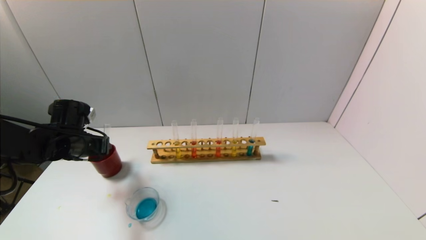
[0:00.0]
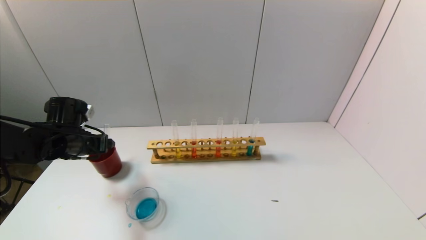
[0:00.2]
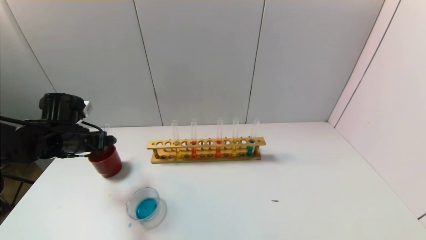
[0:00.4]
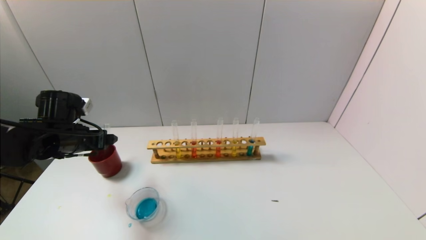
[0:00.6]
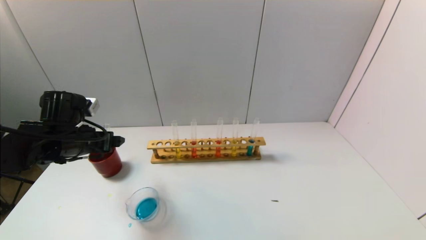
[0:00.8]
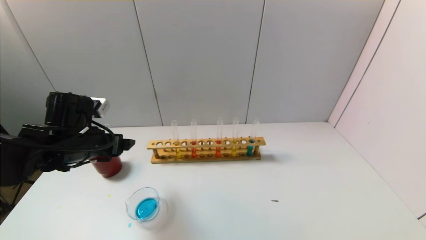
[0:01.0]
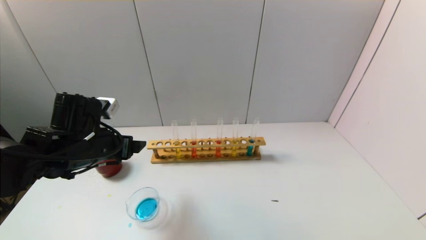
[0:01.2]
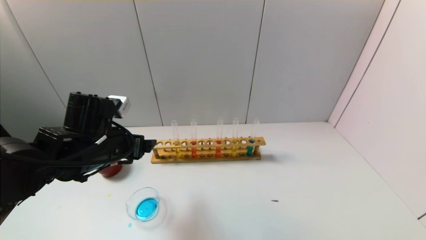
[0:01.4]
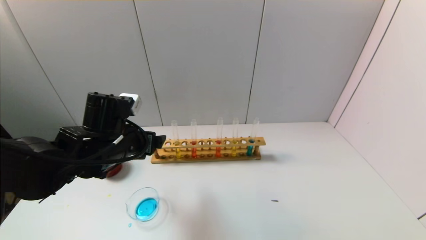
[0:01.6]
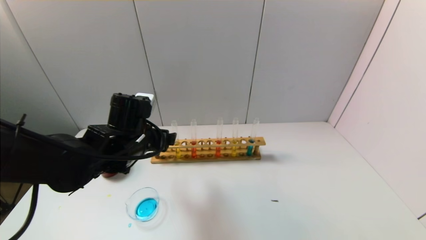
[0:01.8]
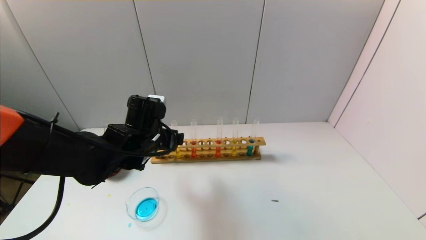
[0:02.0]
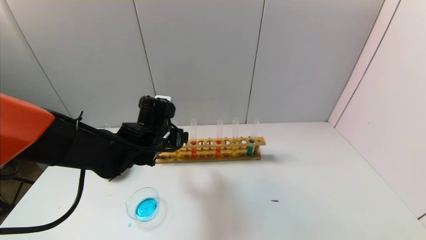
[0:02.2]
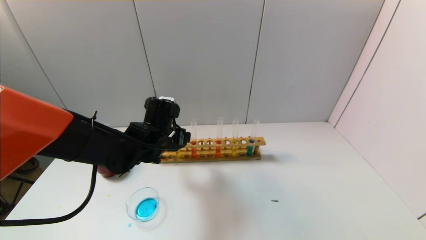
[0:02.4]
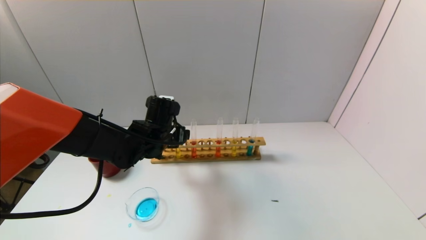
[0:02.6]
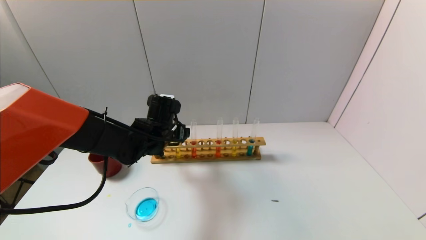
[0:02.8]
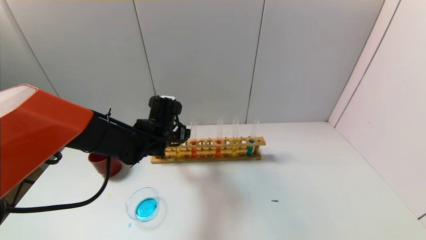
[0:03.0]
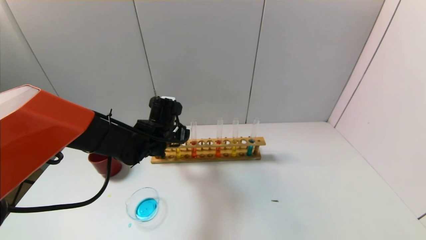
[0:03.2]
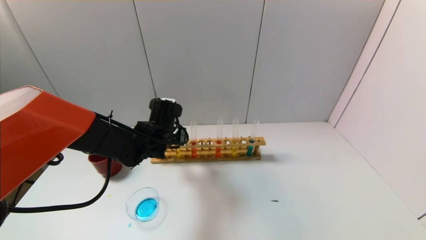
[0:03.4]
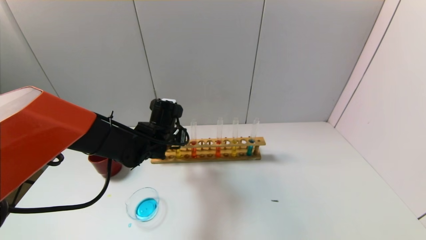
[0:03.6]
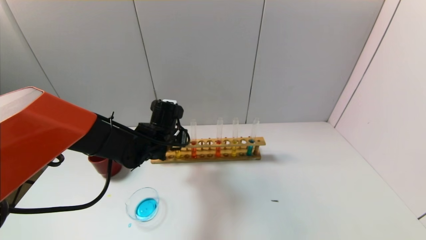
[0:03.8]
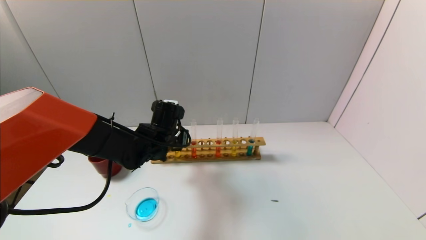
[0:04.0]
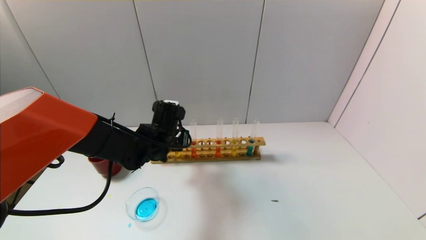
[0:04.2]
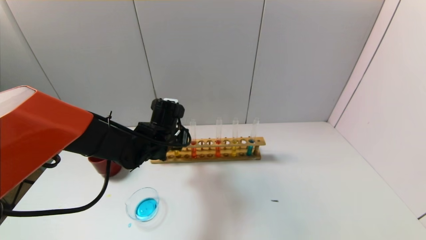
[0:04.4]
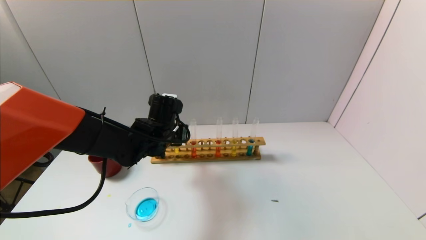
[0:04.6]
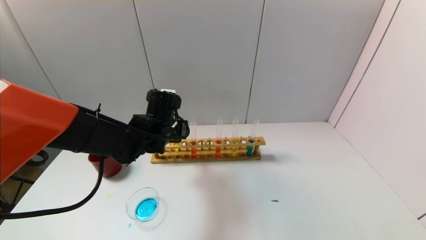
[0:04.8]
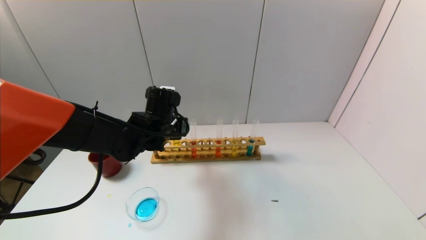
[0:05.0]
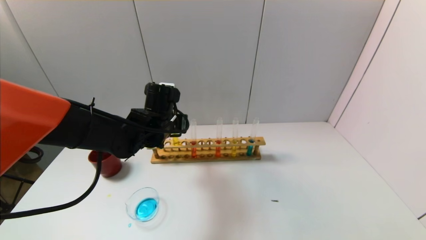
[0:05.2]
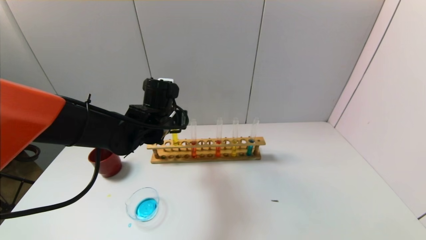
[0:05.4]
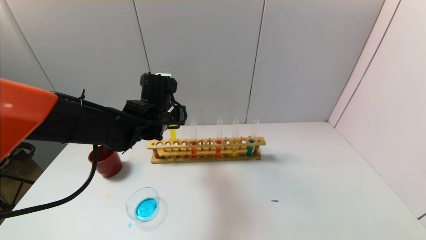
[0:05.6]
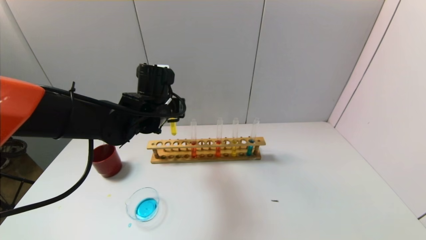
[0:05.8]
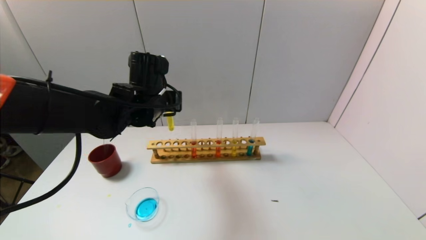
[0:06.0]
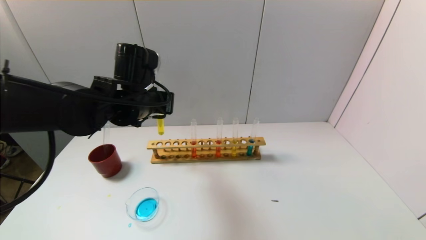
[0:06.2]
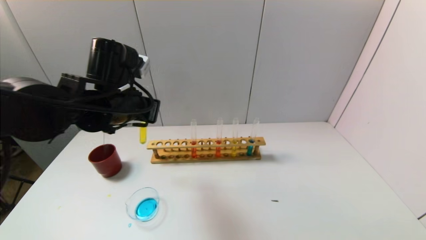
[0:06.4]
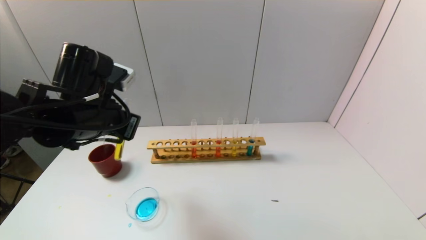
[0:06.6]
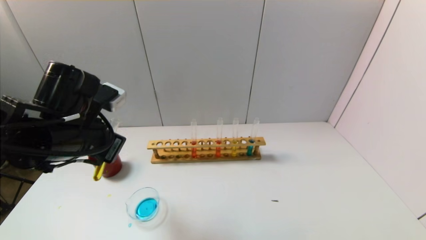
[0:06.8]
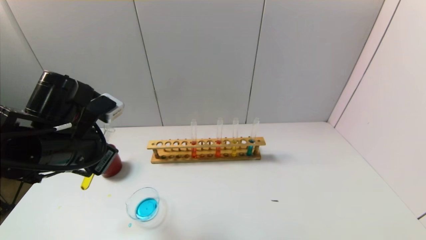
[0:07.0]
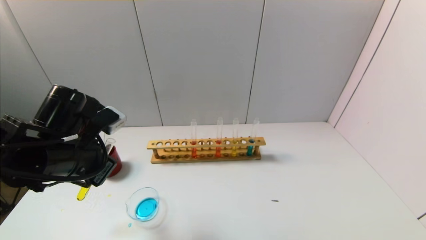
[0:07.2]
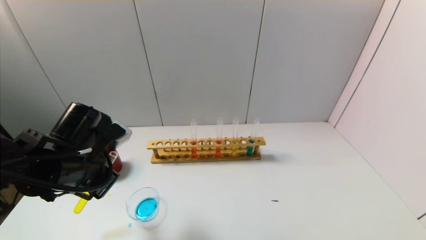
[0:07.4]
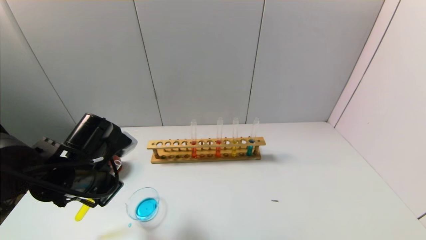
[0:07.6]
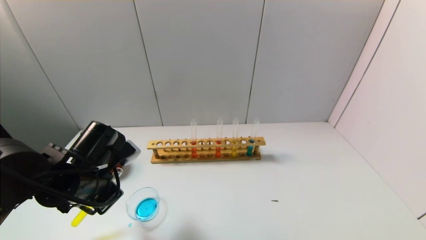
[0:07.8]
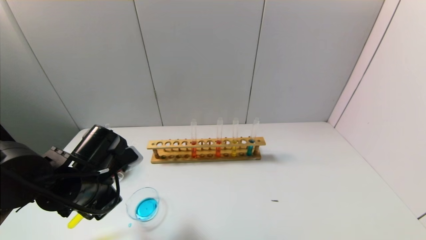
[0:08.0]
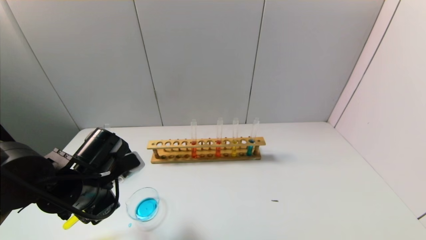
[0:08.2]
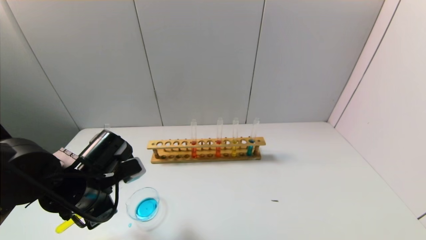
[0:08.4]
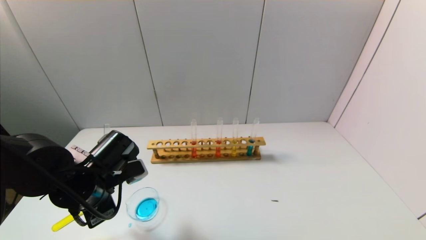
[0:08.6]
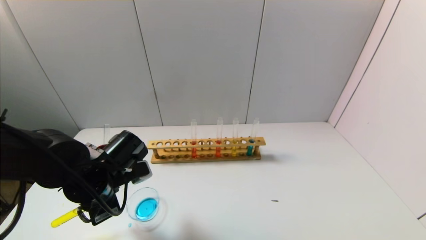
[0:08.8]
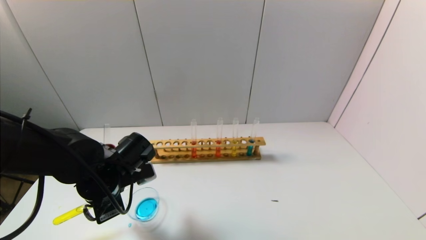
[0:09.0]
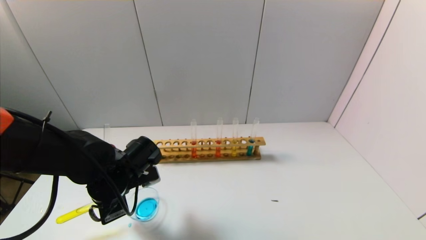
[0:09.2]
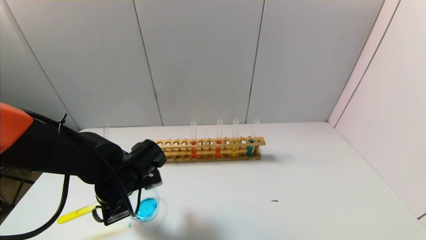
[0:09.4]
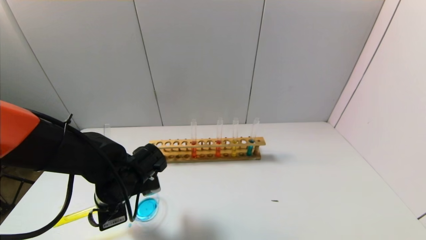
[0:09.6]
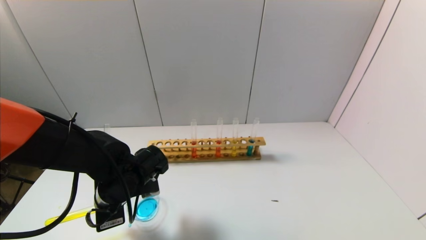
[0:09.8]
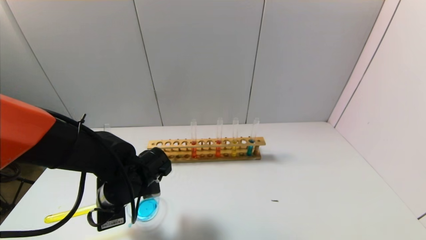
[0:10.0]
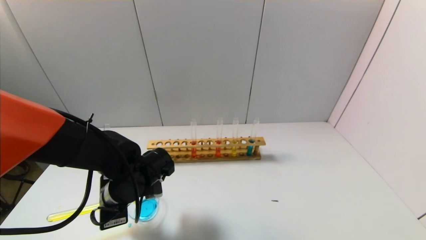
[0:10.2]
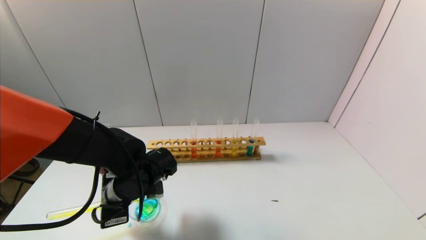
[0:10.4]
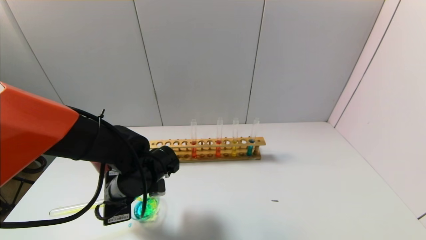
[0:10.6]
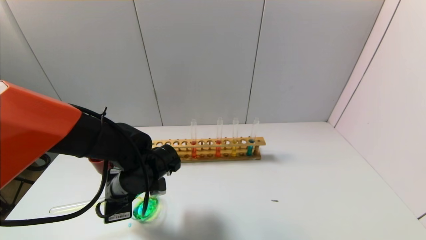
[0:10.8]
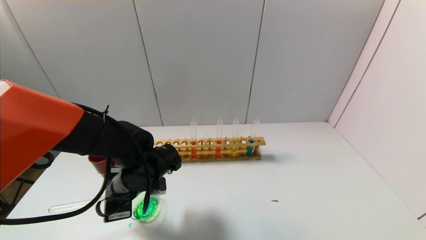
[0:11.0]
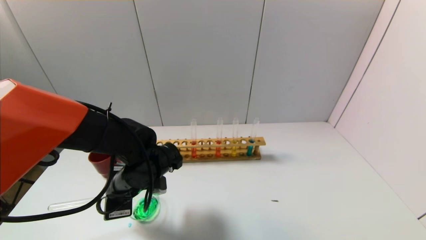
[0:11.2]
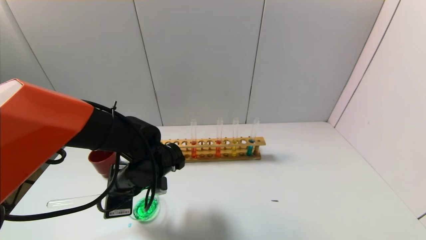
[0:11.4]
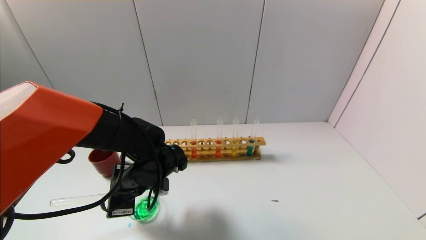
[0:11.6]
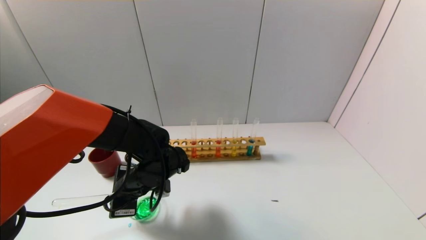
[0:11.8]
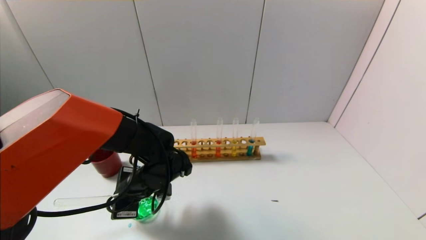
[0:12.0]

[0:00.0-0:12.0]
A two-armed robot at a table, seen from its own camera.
Task of the whole recording: pick up the test tube with yellow pigment and the test tube with blue pigment by grippers and pour them into the beaker.
Step, 0.2 to 4.0 s: Grasp the yellow reagent with the left gripper.
0.0 to 1.6 s: The left gripper travels to the right and backward by about 15 cm, and opens up.
1.6 to 3.0 s: The left gripper travels forward and to the right by approximately 10 cm.
3.0 to 4.4 s: The left gripper closes up.
4.4 to 6.0 s: The left gripper moves upward, roughly 10 cm.
6.0 to 7.6 s: The left gripper travels backward, to the left and downward by roughly 15 cm.
9.0 to 10.4 s: The grippers stay close to where they were, moving slightly.
10.4 to 12.0 s: There are only small adjustments of the grippers.

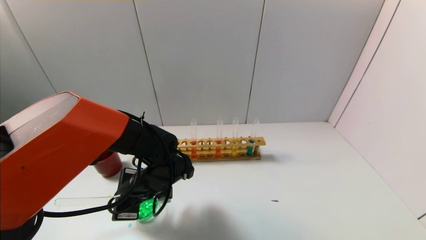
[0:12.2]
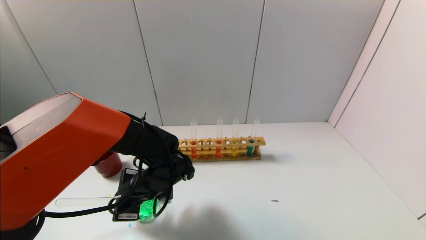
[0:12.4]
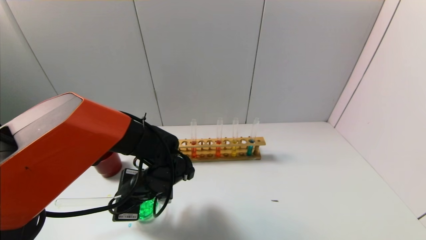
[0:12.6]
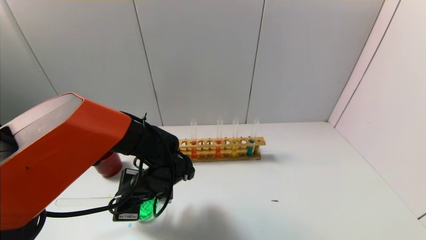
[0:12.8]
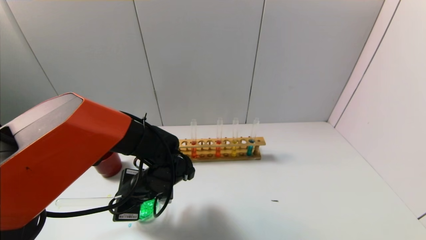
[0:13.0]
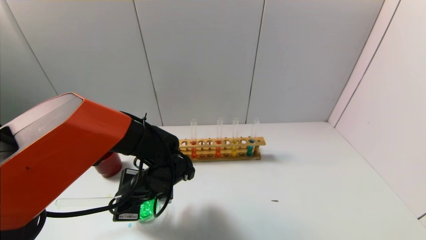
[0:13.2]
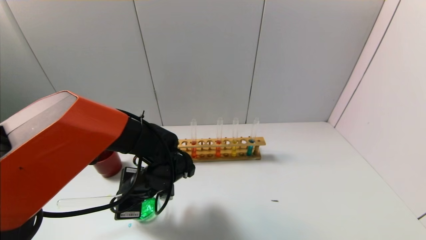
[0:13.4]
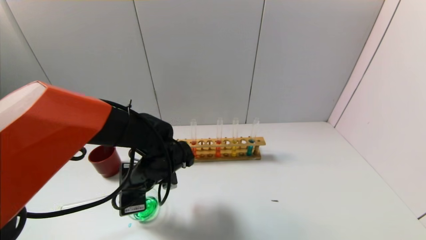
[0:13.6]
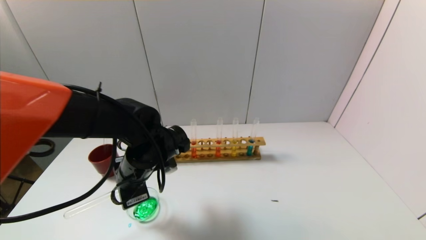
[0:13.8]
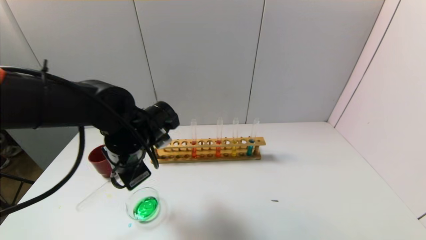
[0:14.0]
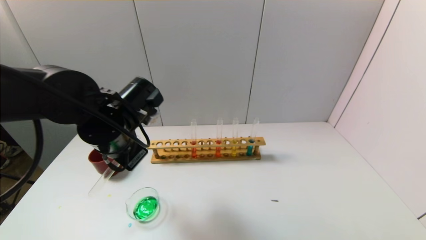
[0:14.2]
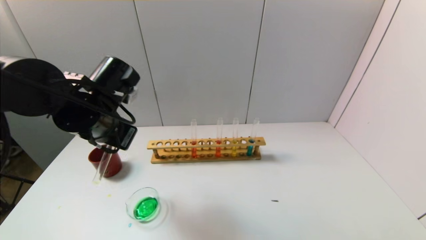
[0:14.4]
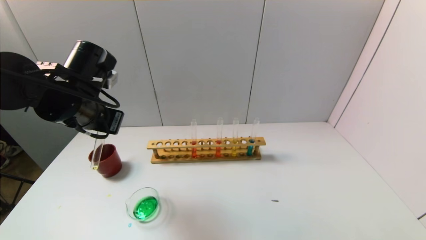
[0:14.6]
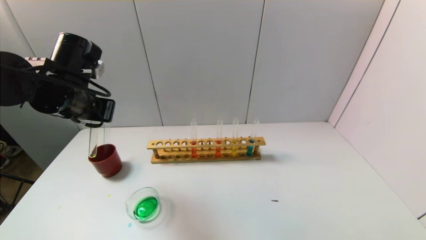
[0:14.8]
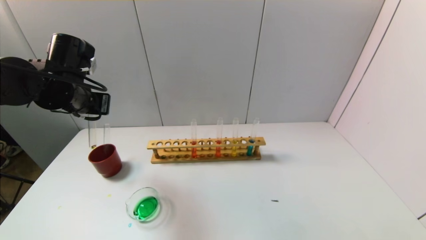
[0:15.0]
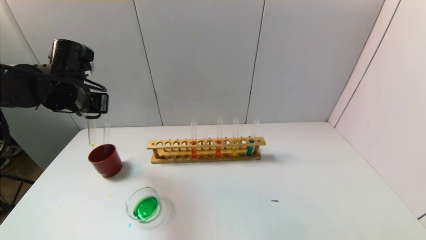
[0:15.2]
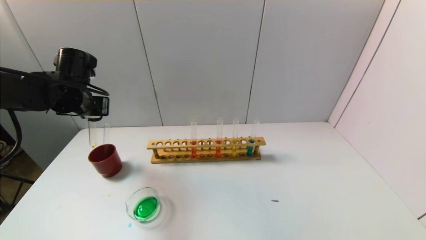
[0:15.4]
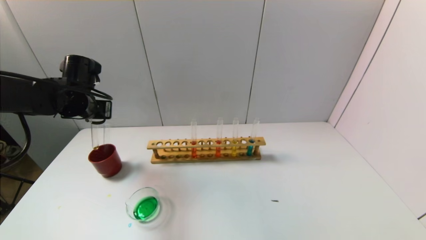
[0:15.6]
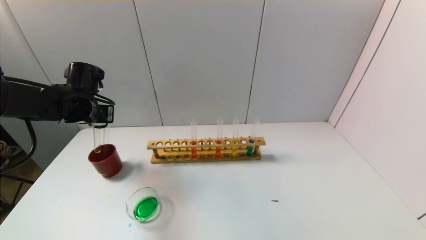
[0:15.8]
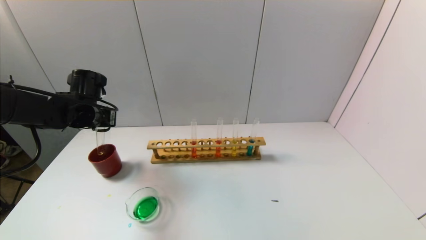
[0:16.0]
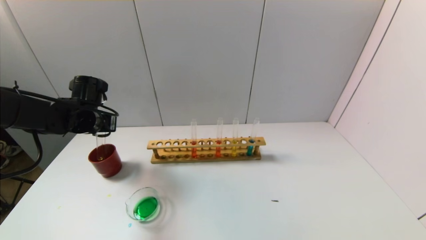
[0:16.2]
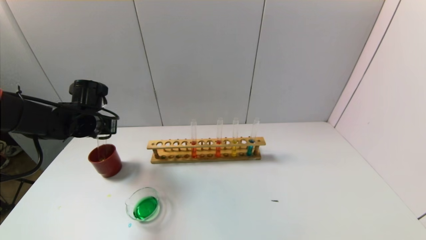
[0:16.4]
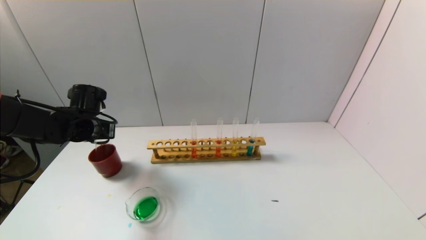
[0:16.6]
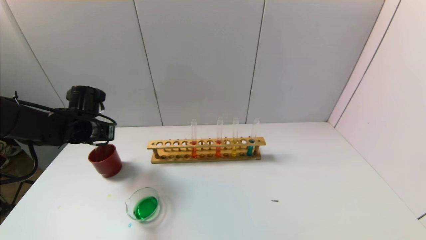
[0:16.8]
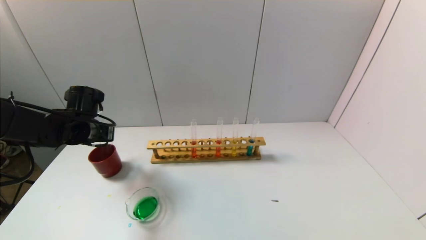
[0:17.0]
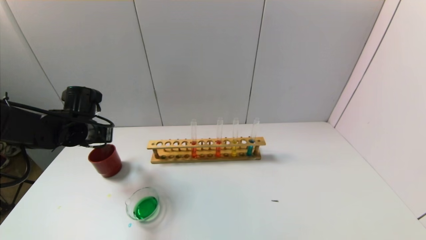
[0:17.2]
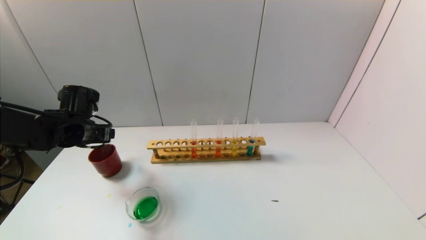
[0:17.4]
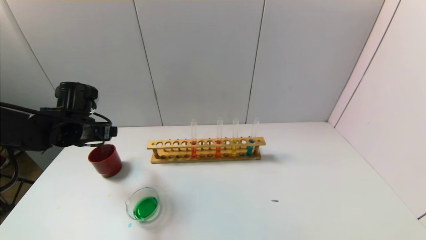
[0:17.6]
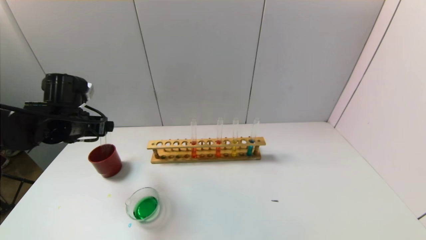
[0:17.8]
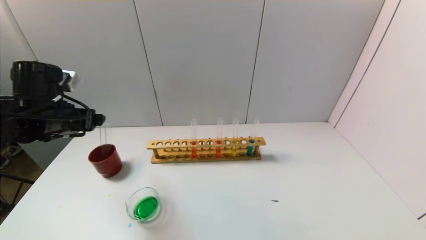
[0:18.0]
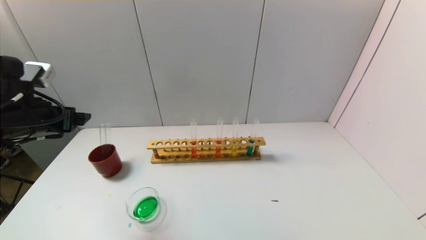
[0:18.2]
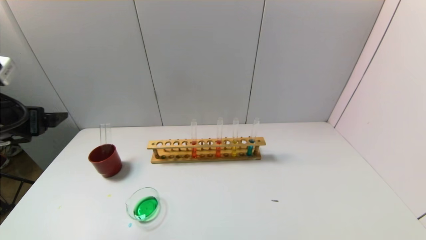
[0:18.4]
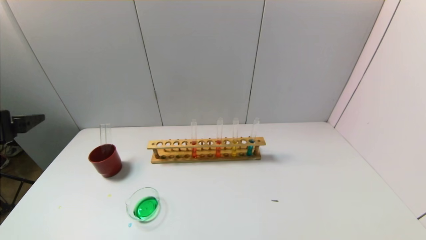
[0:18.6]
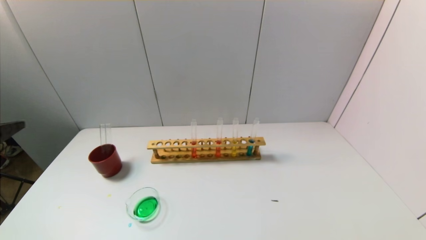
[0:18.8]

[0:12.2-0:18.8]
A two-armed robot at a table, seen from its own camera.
Task of the whole recording: pick up the test tube with yellow pigment and the test tube with blue pigment by grippers and pour them into the beaker.
Step, 13.4 to 17.4 s: Place the test tube into the brown cup with the left gripper.
12.2 to 13.8 s: The left gripper shifts roughly 5 cm upward.
13.8 to 15.4 s: The left gripper travels to the left, forward and upward by roughly 20 cm.
15.4 to 17.2 s: The left gripper is displaced downward by about 5 cm, and opens its fingers.
17.2 to 18.8 s: The left gripper heads backward and upward, covering roughly 25 cm, and opens its fingers.
